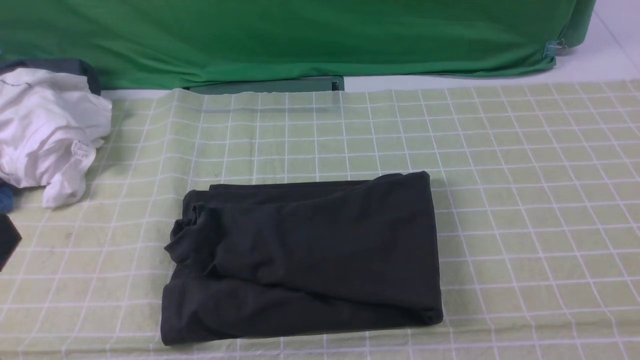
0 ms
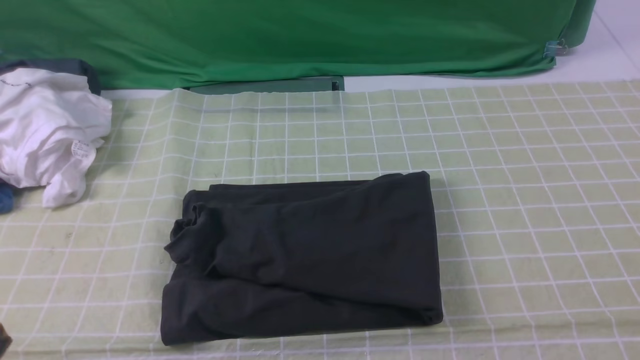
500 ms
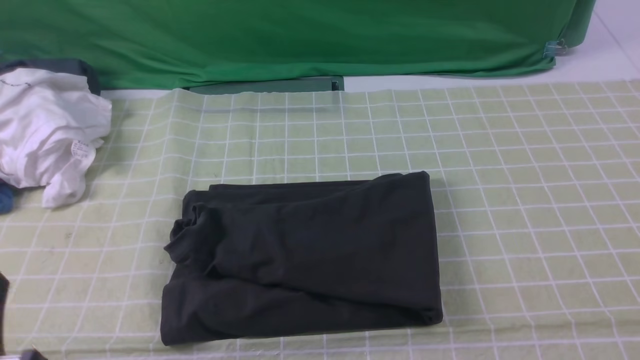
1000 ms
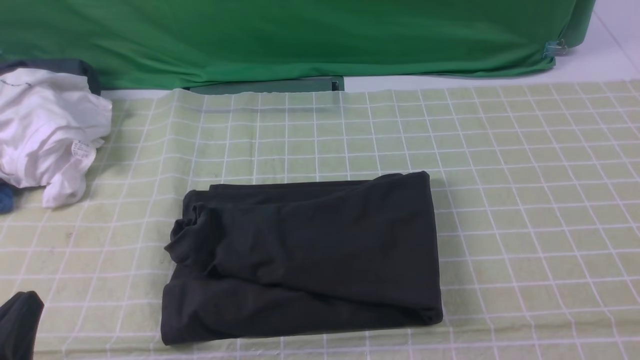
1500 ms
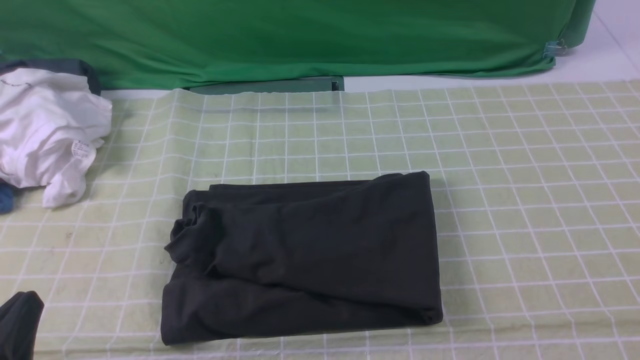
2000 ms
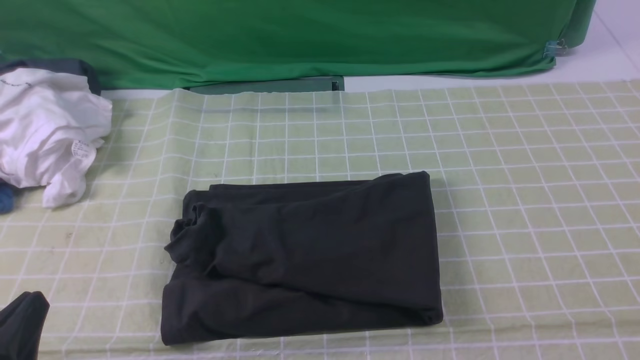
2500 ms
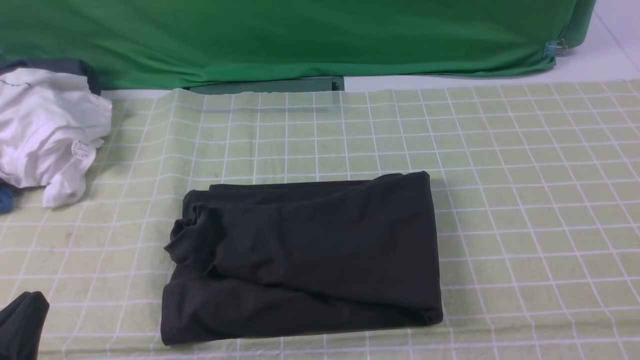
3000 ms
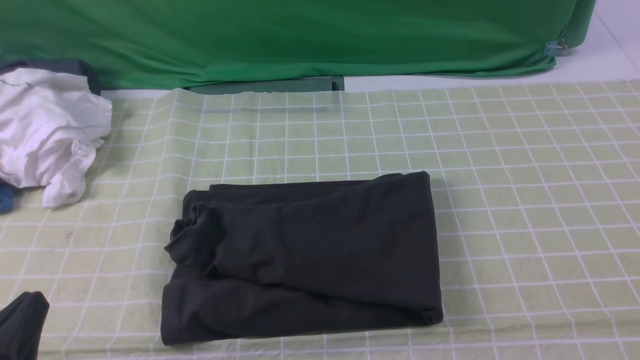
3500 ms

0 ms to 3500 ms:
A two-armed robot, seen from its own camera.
0 ms to 2000 ms: The left gripper travels downward by roughly 15 cm.
2000 ms to 3500 ms: The two grippers keep their place.

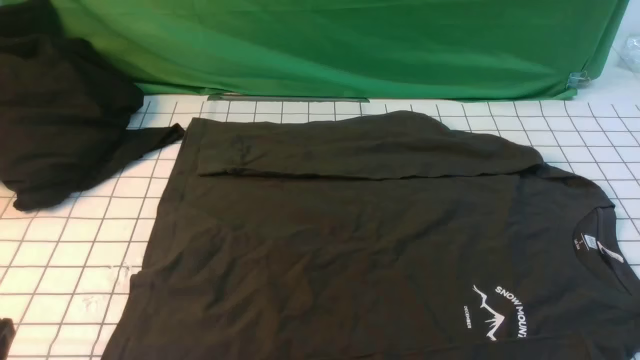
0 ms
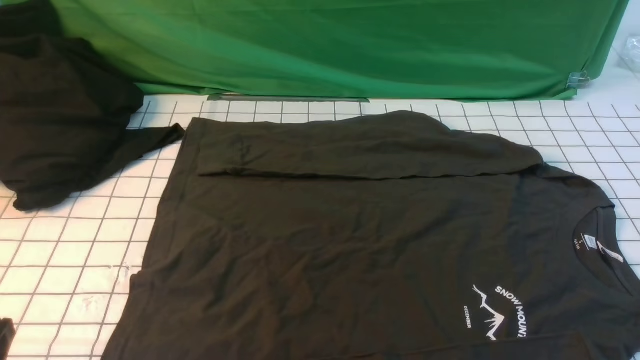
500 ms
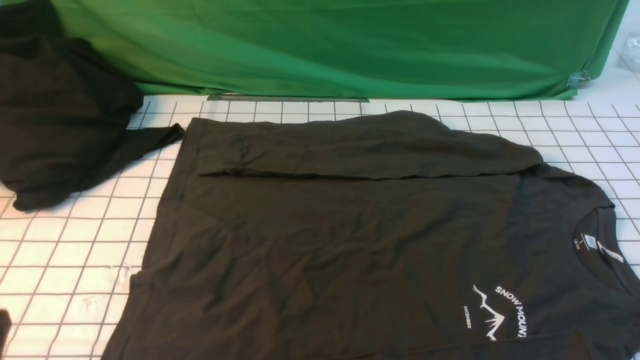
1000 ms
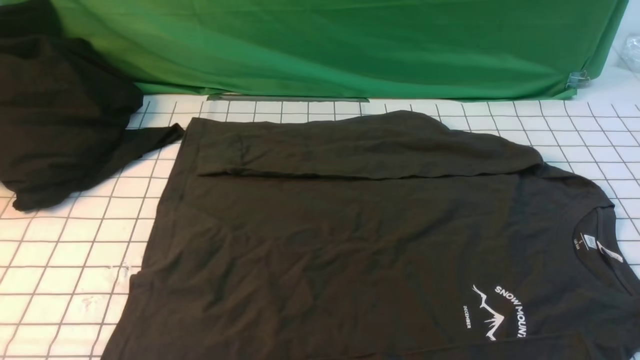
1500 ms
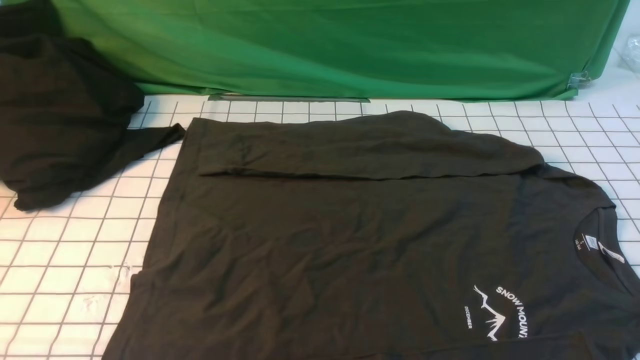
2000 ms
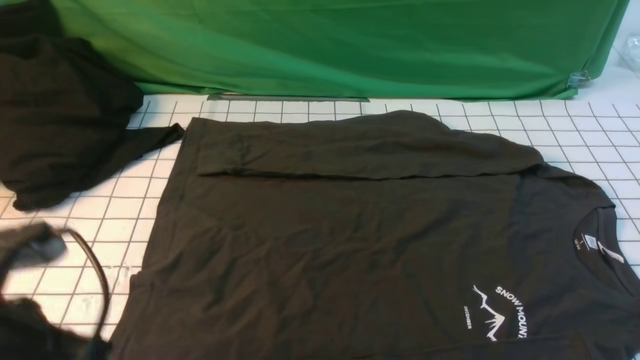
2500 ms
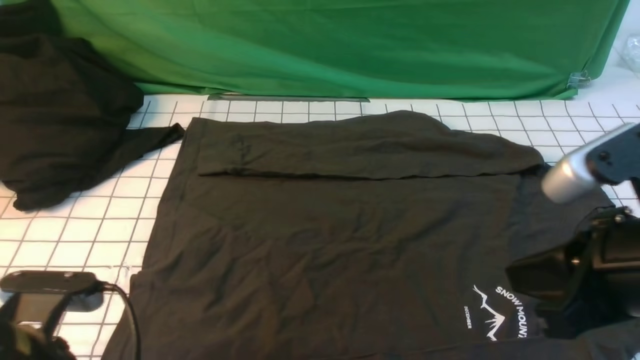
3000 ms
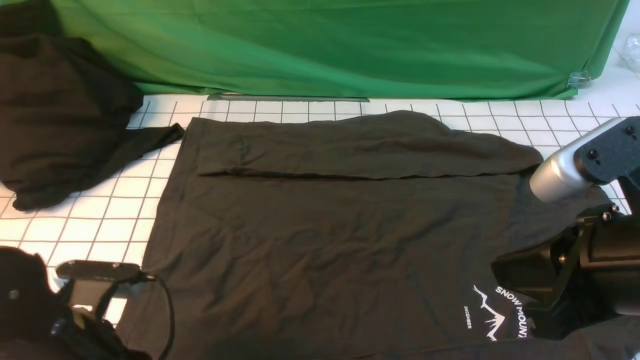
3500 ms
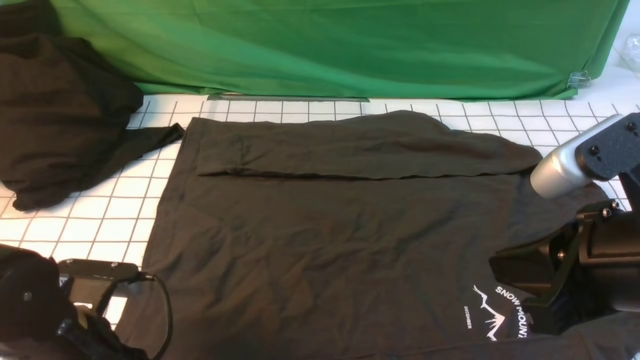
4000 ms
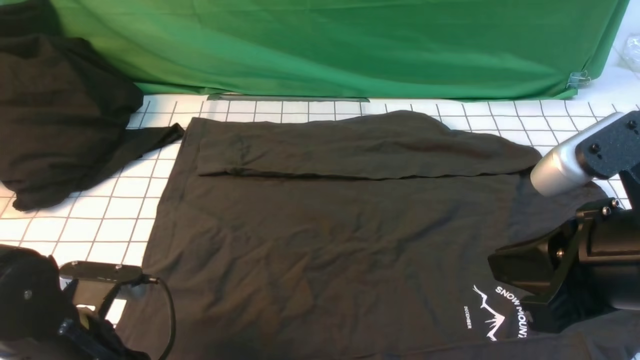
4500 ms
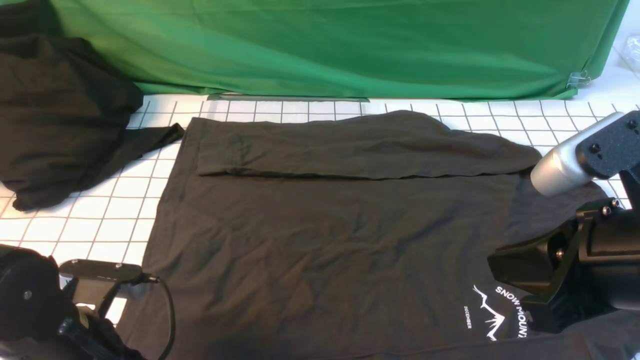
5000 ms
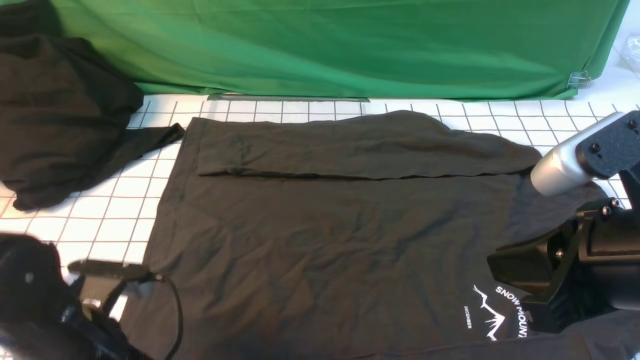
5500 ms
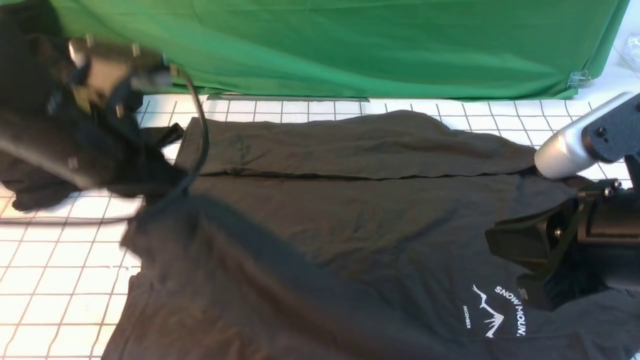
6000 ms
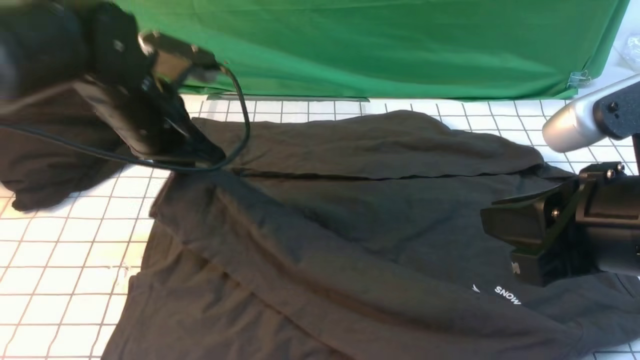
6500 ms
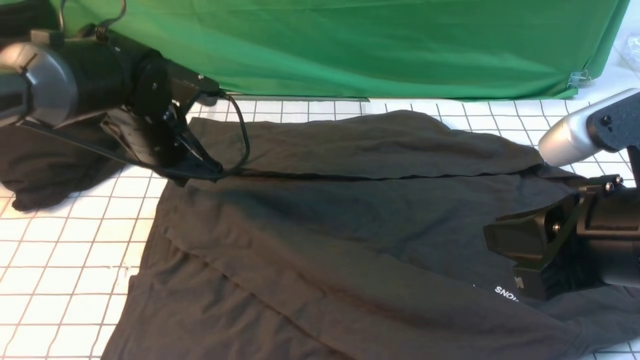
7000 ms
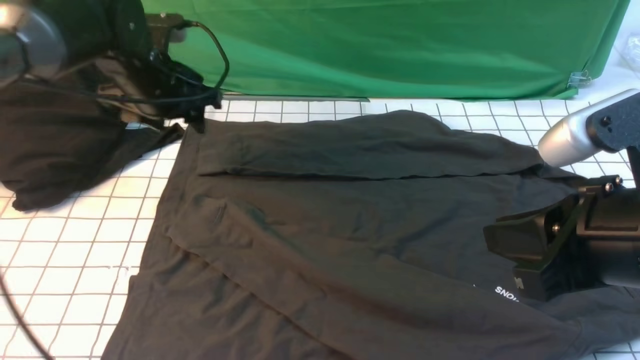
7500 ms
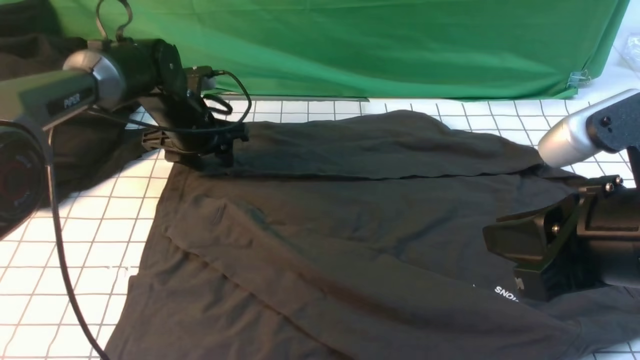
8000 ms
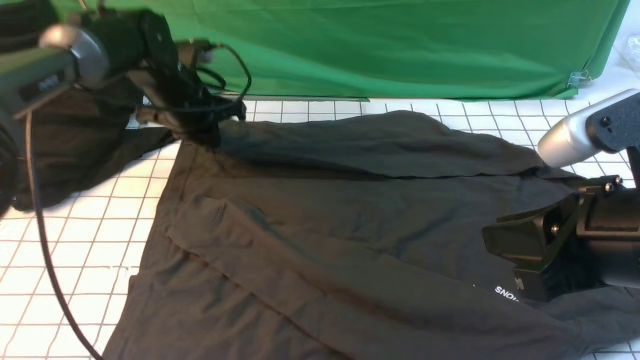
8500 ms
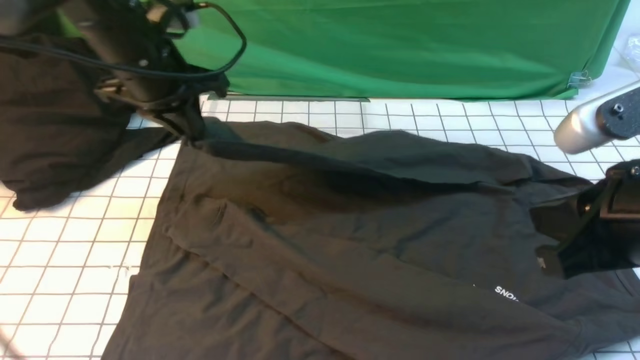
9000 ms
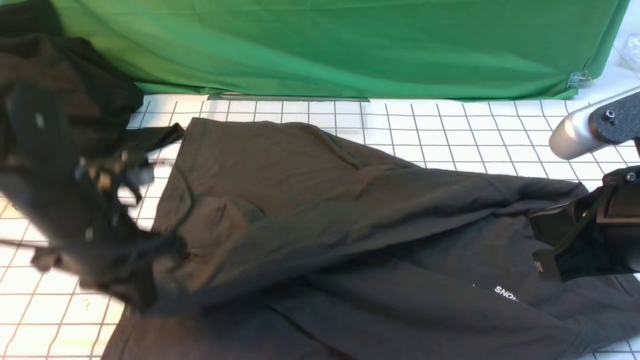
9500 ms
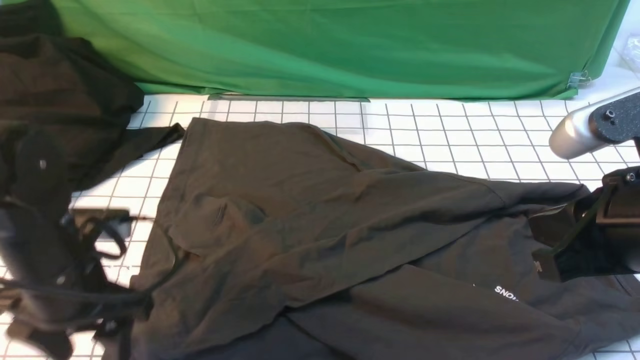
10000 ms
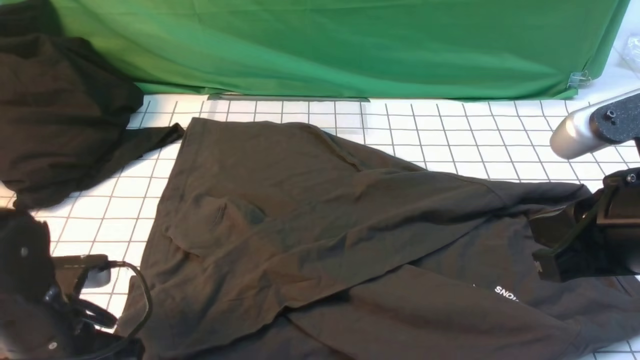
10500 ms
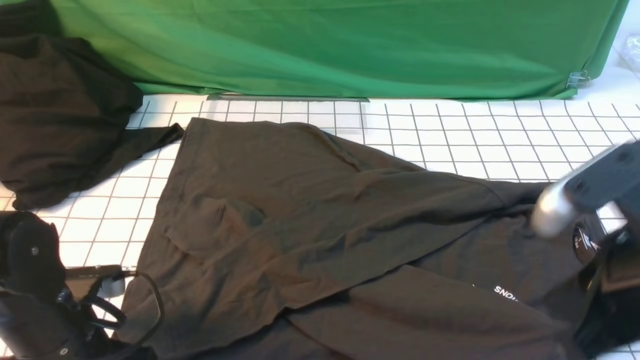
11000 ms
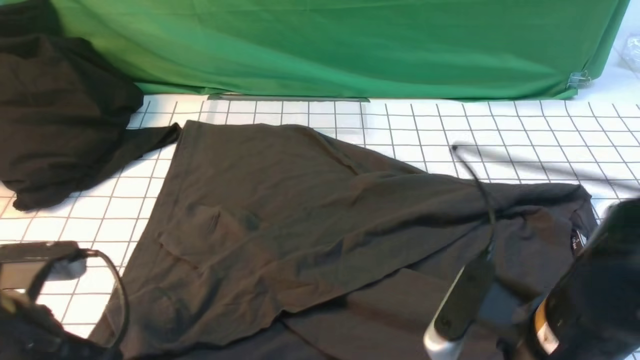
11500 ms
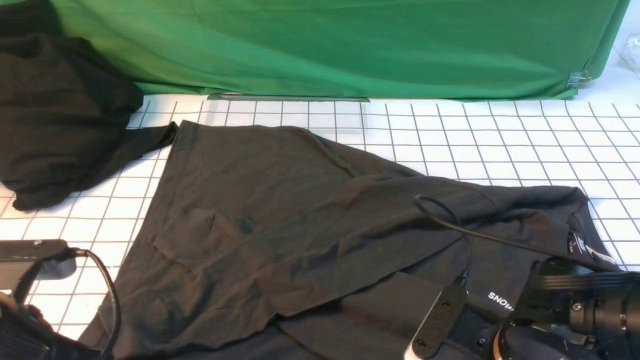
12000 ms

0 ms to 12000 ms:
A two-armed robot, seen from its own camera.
Step, 0 ms to 5500 ms: use the left arm to clamp the cuff closest to it.
Step, 6000 ms to 7000 ms: use the left arm to drag and place the cuff at the centered position on the left edge of the fabric.
Step, 7500 ms to 8000 ms: use the left arm to clamp the cuff farthest from it.
Step, 8500 ms to 9500 ms: use the left arm to drag and drop the cuff onto the cuff closest to the left arm.
2000 ms to 4000 ms: The left gripper is displaced downward and forward by some 20 cm, and opens; the right gripper moves to the left, forward and upward, some 15 cm.
4000 ms to 6000 ms: The left gripper moves upward and forward, approximately 15 cm, and closes.
6000 ms to 8000 ms: The left gripper moves forward and downward, approximately 25 cm, and opens.
8000 ms to 10000 ms: The left gripper is displaced backward by some 25 cm, and closes and opens again.
10000 ms to 12000 ms: The left gripper goes roughly 10 cm backward, and closes its fingers; the right gripper heads downward, covering roughly 15 cm, and opens its fingers.

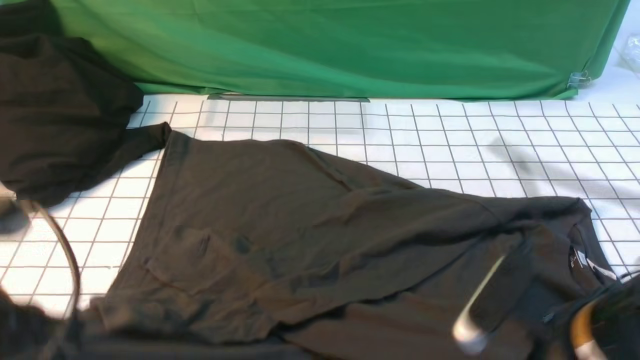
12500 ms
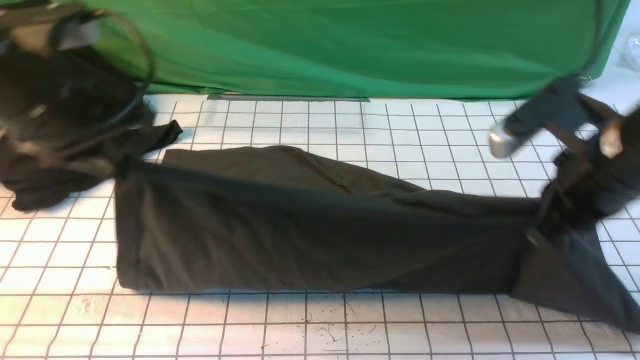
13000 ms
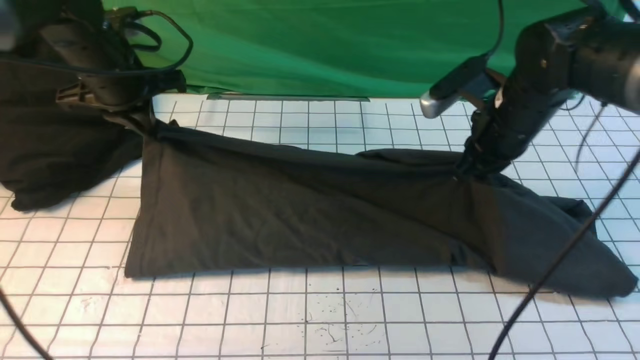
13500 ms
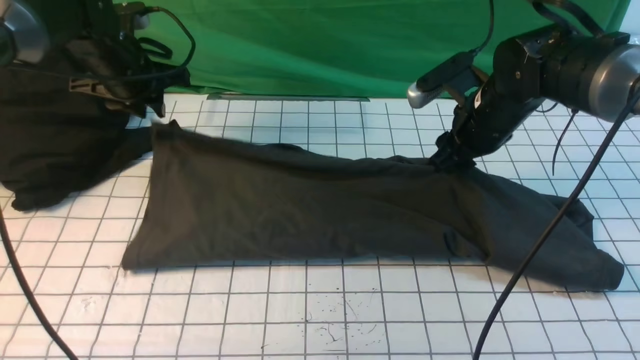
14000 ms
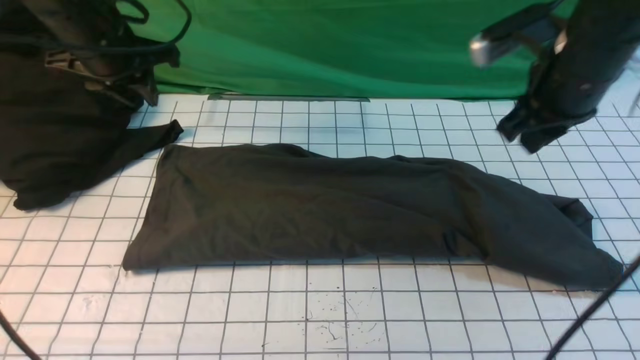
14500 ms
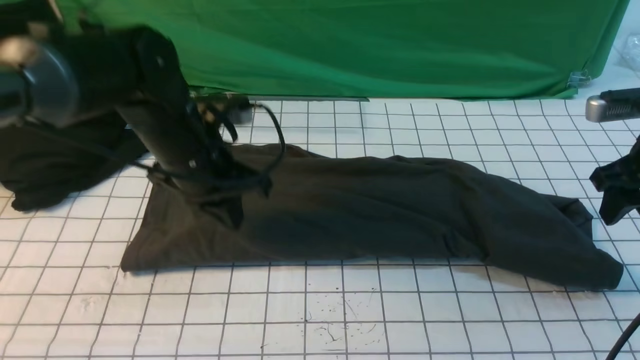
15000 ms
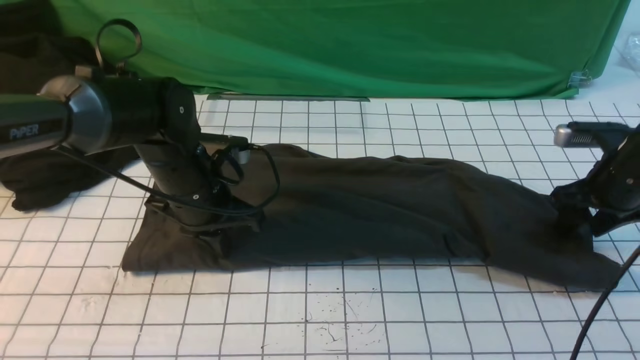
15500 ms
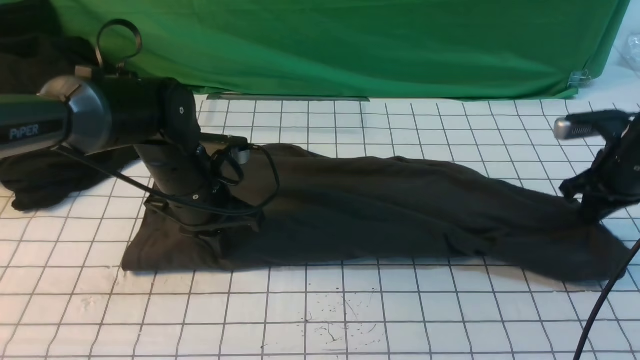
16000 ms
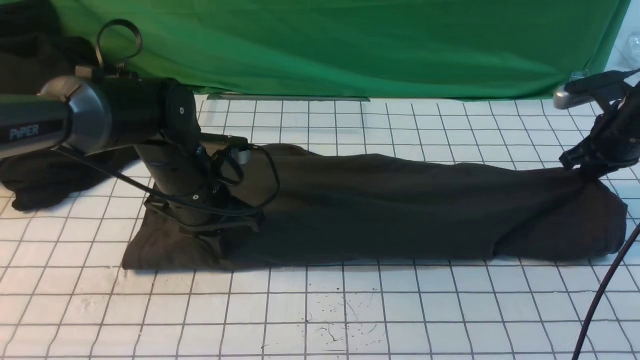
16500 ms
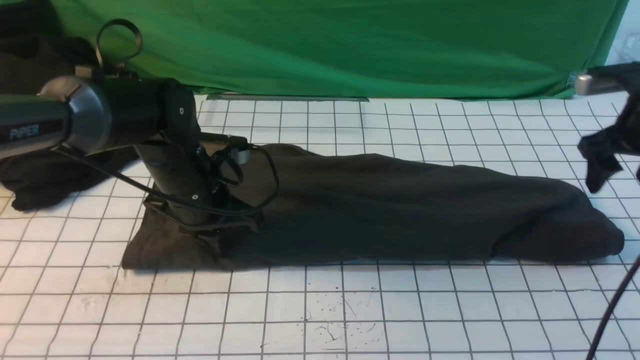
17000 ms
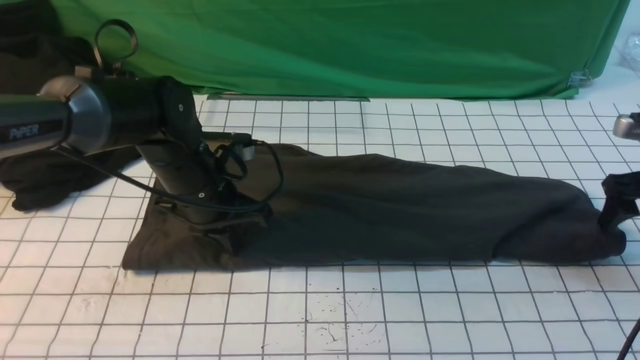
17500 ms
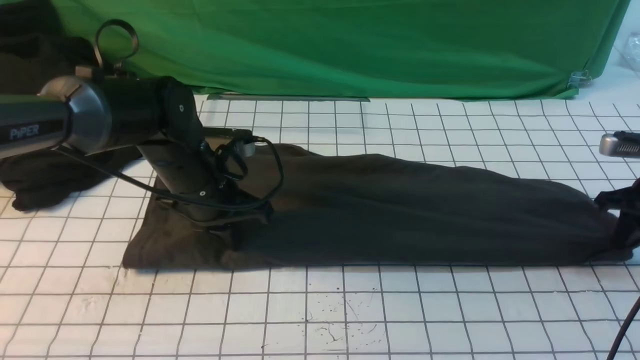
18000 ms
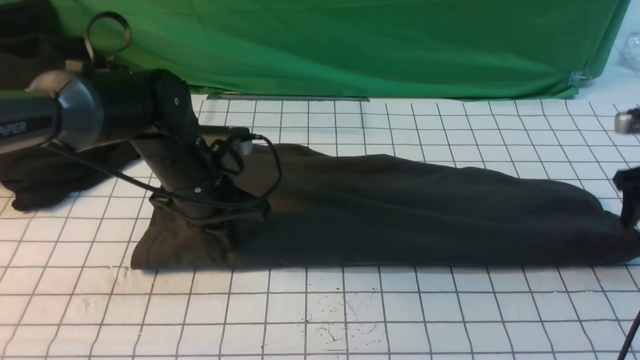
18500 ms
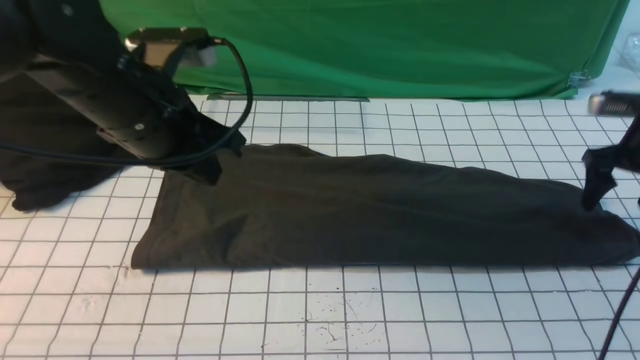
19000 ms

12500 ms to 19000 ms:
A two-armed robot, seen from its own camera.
Step, 13000 ms to 14000 ms: use both arms to drag the lower edge of the fabric forward and fold it over the upper edge.
12500 ms to 14500 ms: The grippers both shift forward by some 25 cm. The left gripper opens up.
14500 ms to 17000 ms: The left gripper goes roughly 15 cm downward, to the right and backward, and closes up; the right gripper goes approximately 15 cm to the right and downward, and opens.
17000 ms to 19000 ms: The right gripper closes and opens again. Meanwhile the left gripper goes about 15 cm upward.
